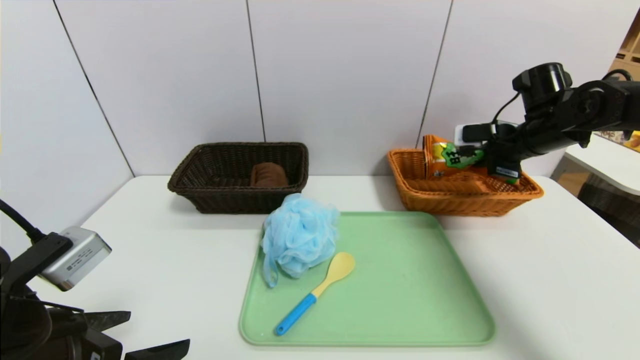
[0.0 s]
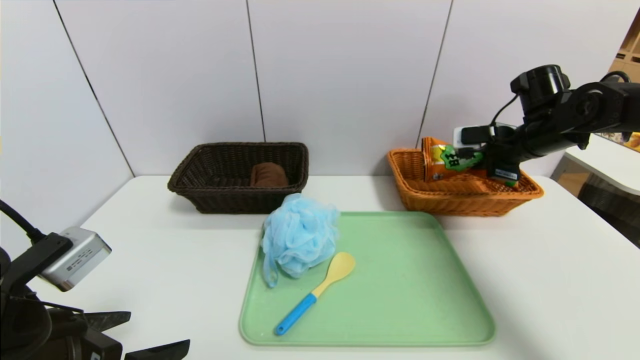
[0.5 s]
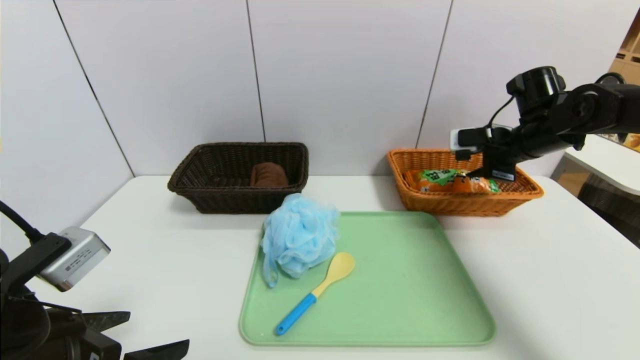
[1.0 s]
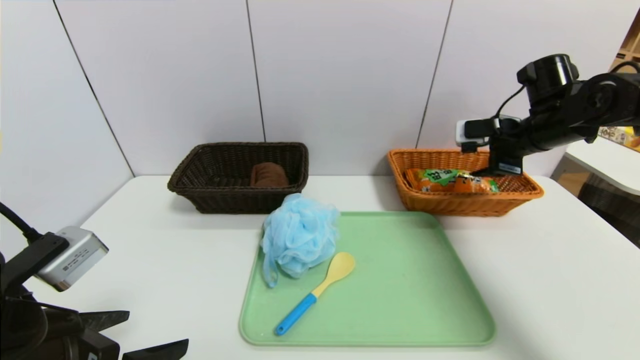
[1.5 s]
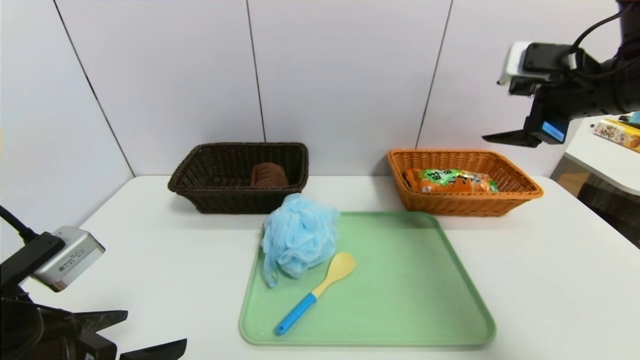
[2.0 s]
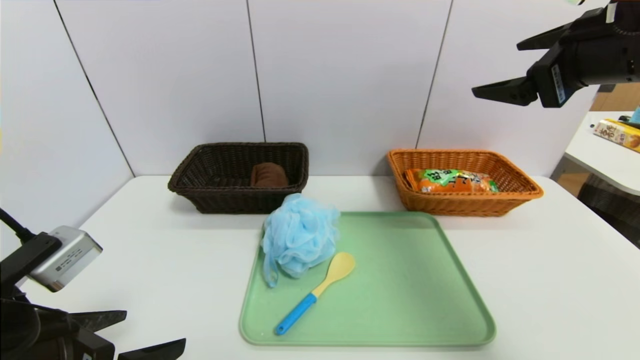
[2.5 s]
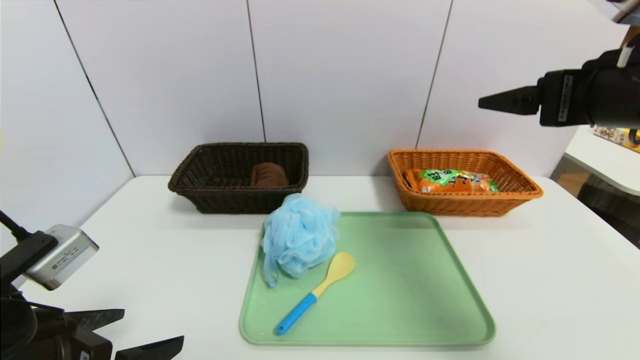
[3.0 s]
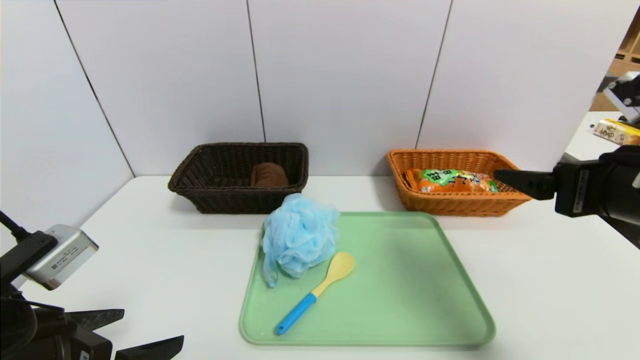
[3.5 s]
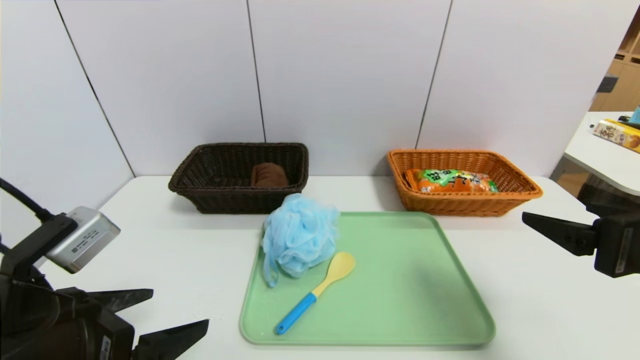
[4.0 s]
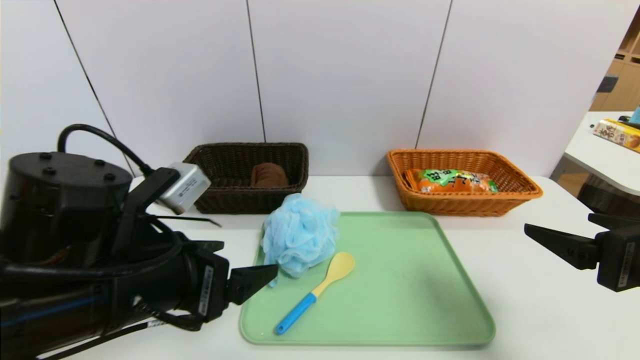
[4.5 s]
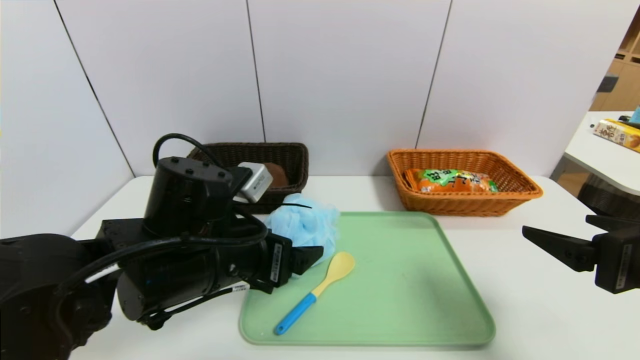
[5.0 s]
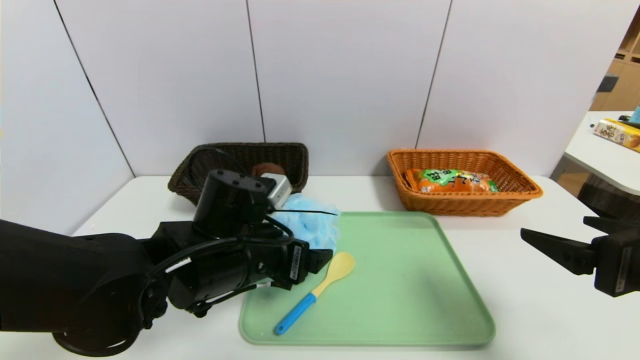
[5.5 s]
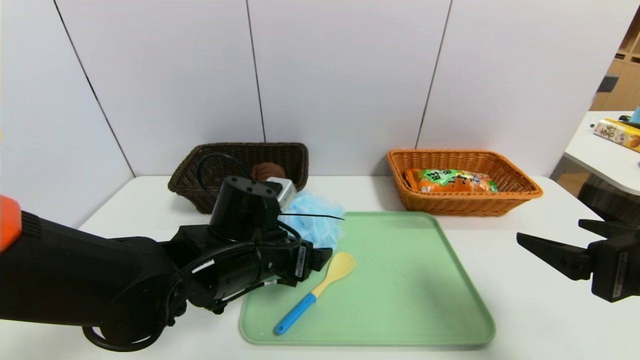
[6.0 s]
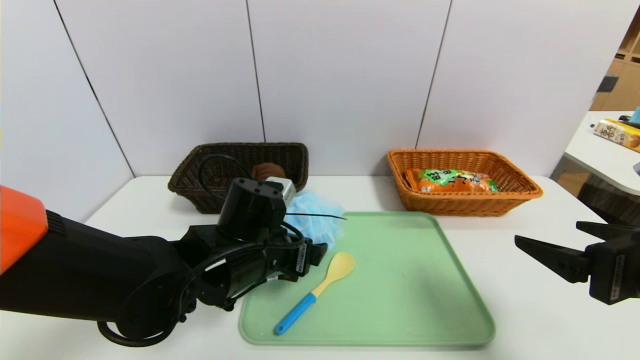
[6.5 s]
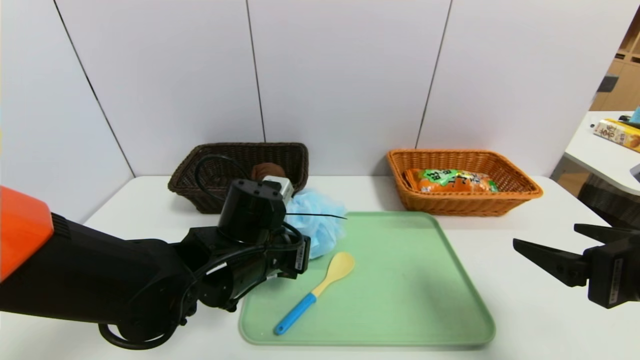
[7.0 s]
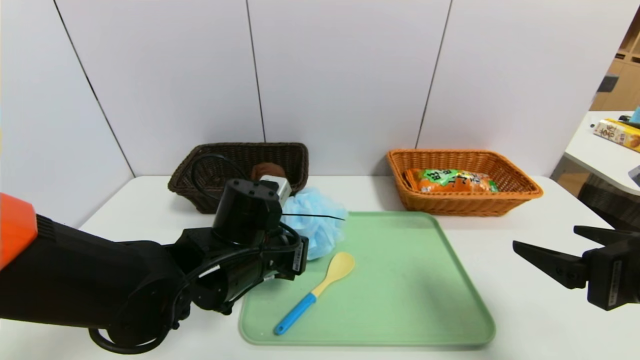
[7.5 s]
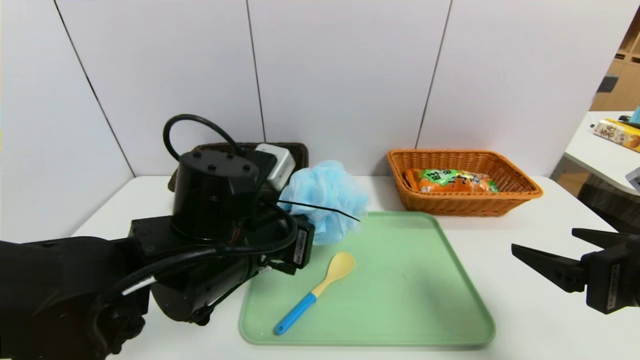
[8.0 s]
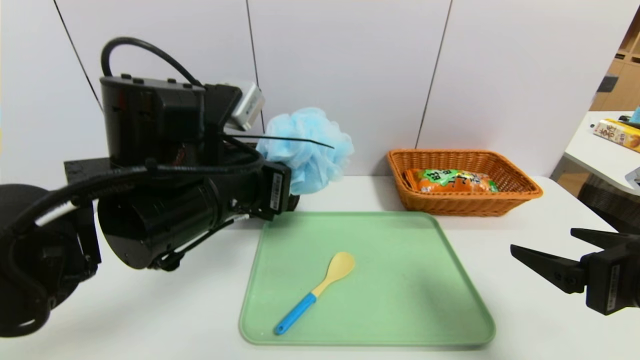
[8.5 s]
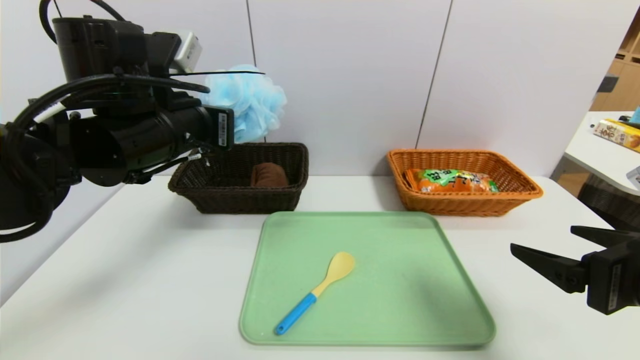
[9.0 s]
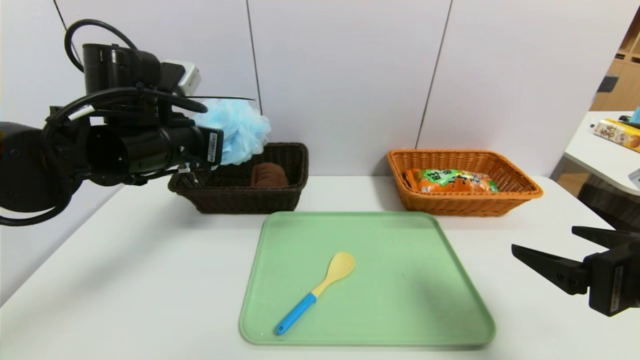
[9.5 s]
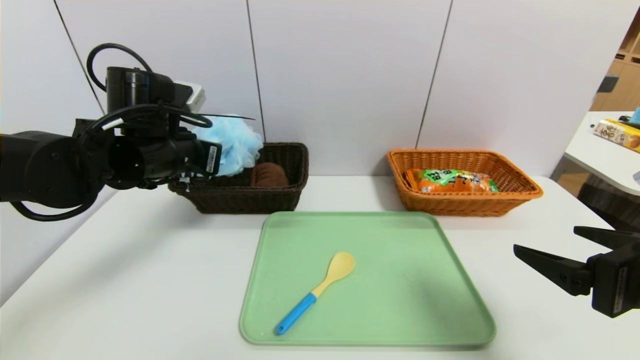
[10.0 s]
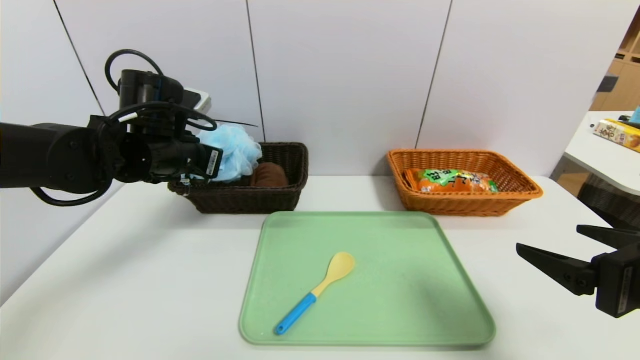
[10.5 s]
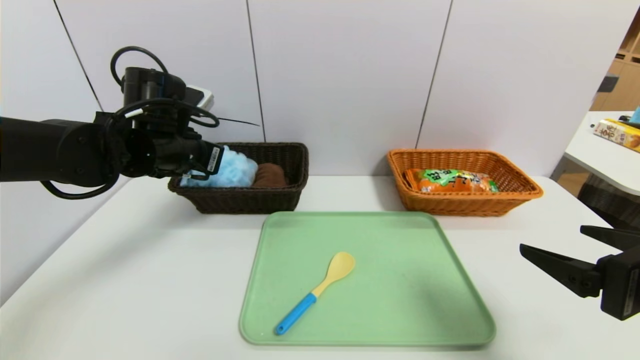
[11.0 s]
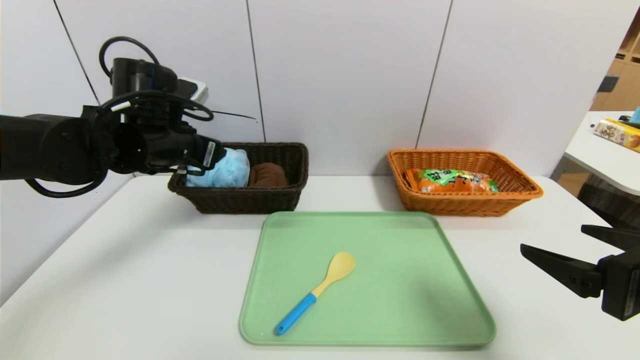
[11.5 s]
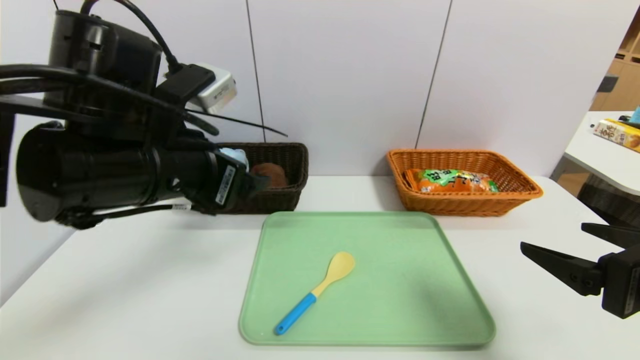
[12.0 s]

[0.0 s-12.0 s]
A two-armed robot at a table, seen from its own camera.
Task of the whole recording: place the food in the right basket with the right gripper, and place the non food items in the left basket with the left gripper.
Step, 2.0 to 11.5 s: Grasp the shower sphere and put it in the left basket.
0.0 to 2.0 s: The right gripper heads backward and upward, covering about 15 cm, and opens up.
2.0 to 4.0 s: The right gripper heads backward and downward, covering roughly 20 cm.
4.0 to 6.0 s: The left gripper heads forward, to the right and downward, covering approximately 20 cm.
6.0 to 8.0 s: The left gripper shifts roughly 5 cm upward, and closes up.
8.0 to 10.0 s: The left gripper travels to the left and forward by roughly 15 cm.
10.0 to 12.0 s: The left gripper shifts about 10 cm backward and to the right, and opens its fingers.

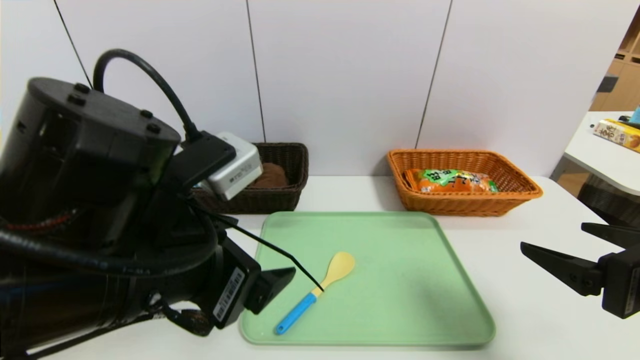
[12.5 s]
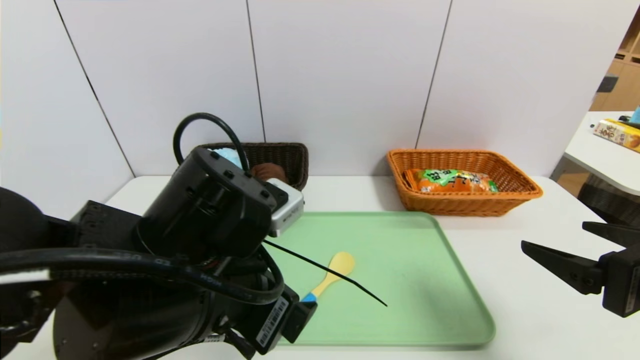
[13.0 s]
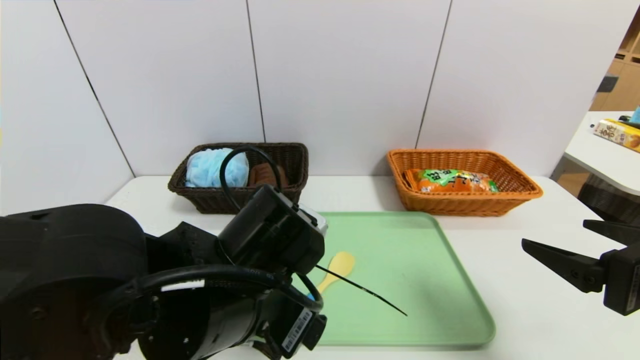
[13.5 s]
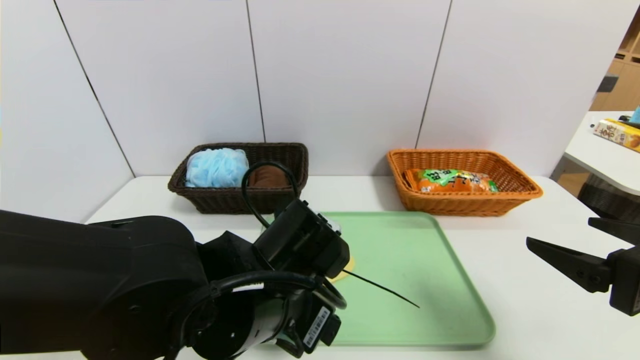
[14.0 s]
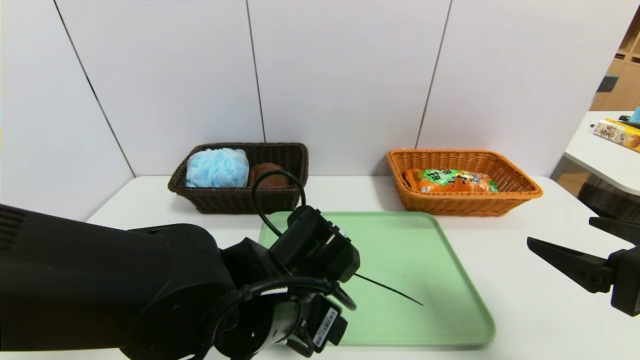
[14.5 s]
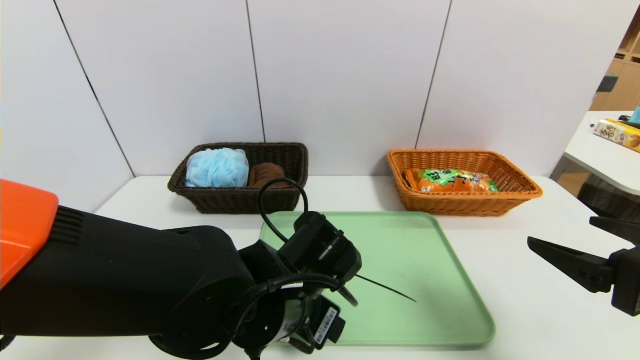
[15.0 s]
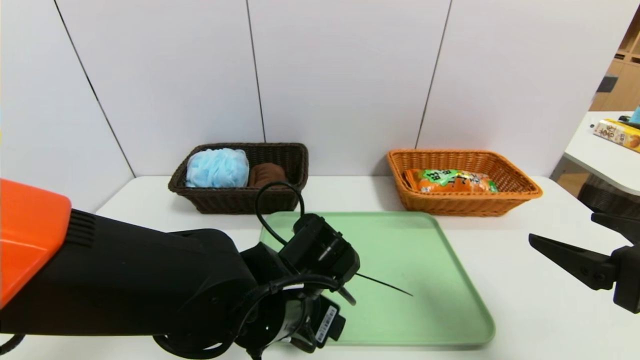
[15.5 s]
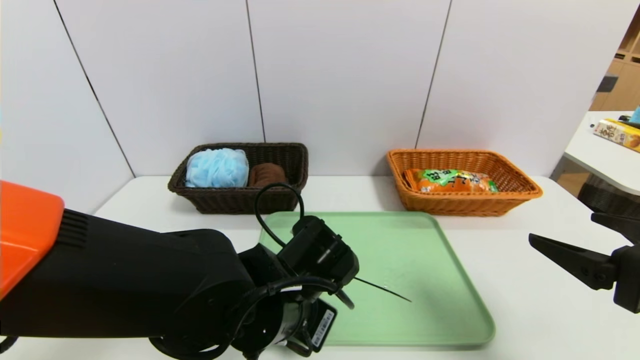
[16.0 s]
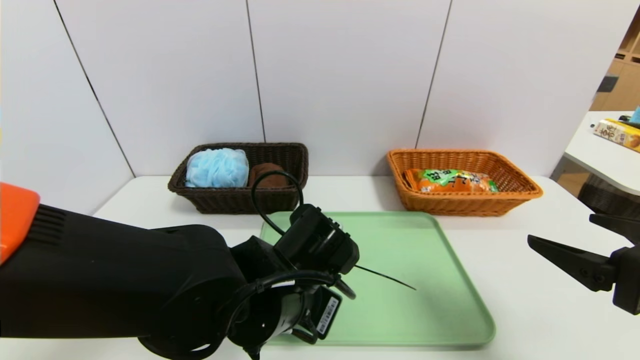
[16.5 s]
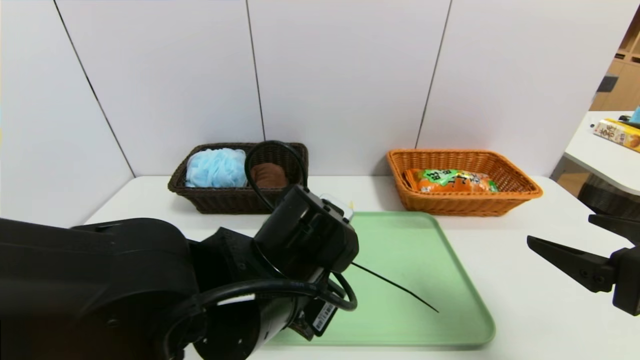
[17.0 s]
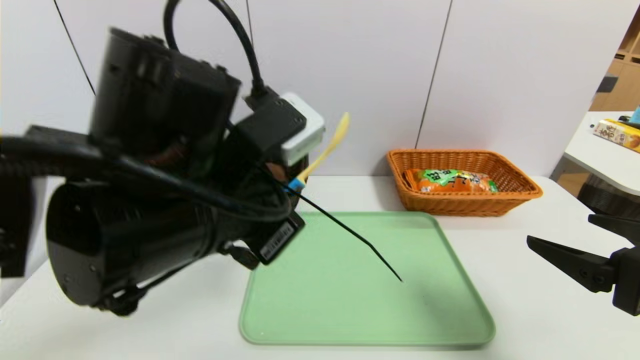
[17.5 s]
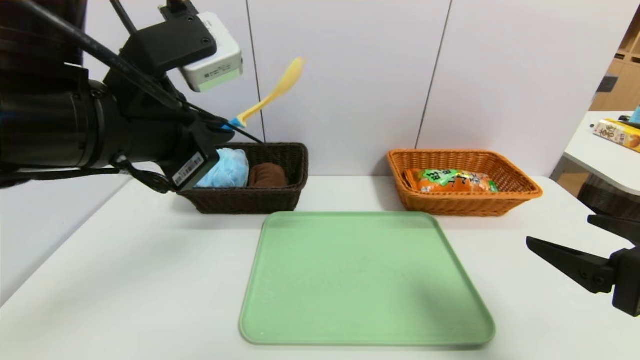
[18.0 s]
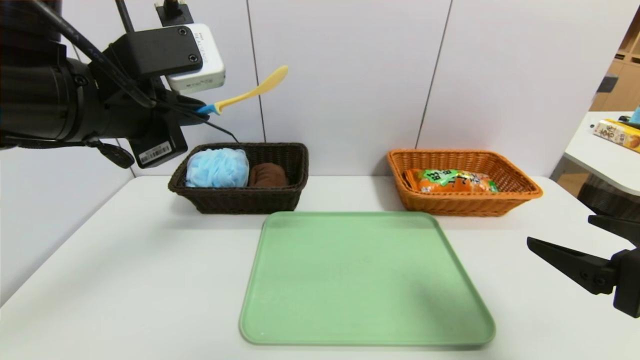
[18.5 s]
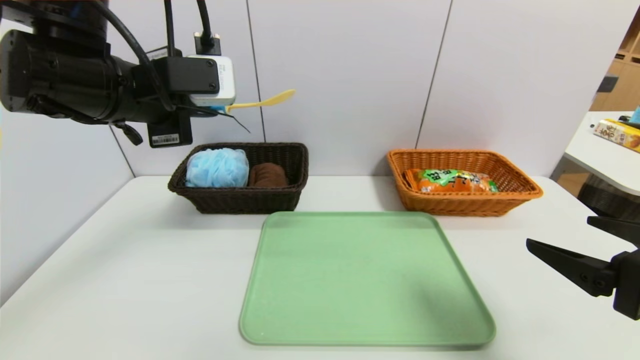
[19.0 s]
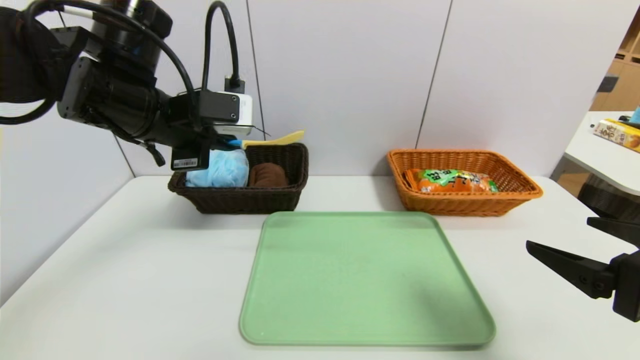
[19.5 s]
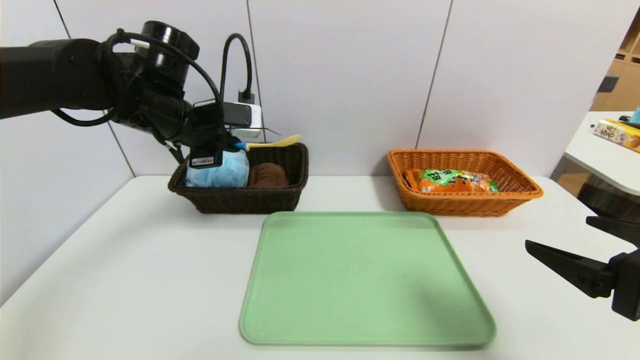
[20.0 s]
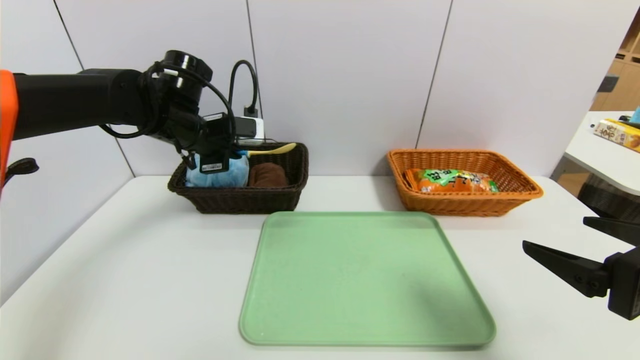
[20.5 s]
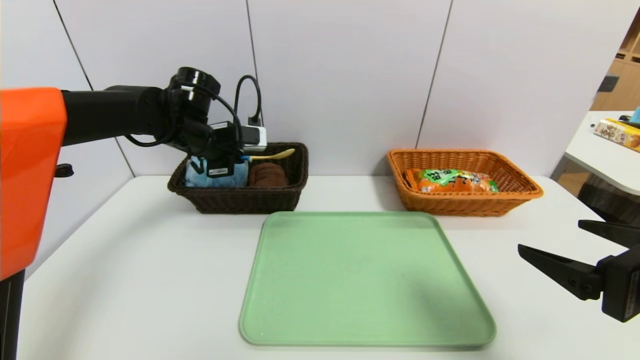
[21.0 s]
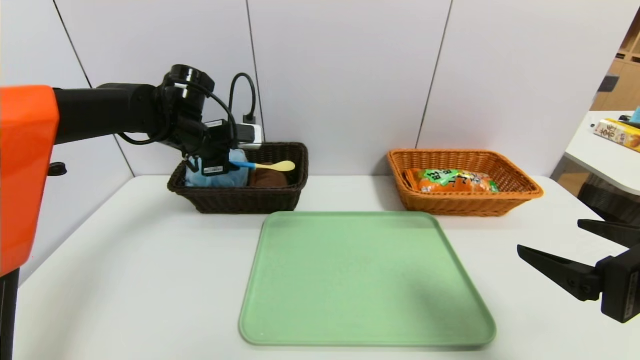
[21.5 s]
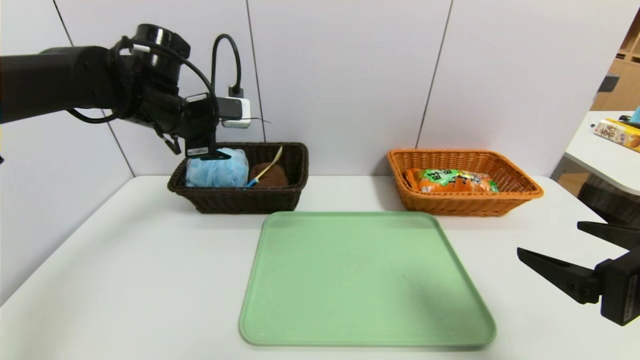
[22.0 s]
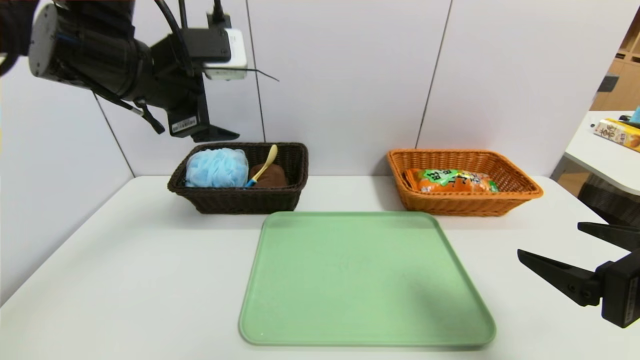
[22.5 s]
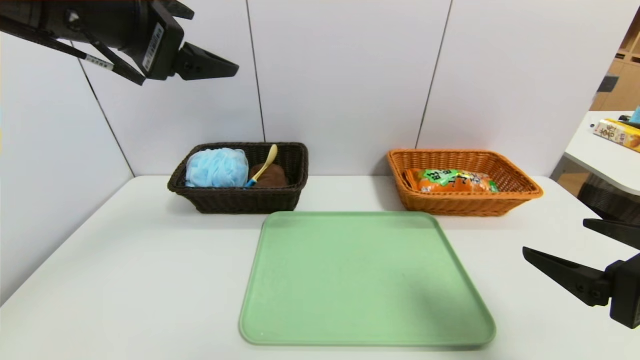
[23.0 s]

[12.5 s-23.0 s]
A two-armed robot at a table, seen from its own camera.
Task of the whole recording: place the food in the right basket with the right gripper, and place the non food items in the left basket with the left gripper.
Step, 12.5 to 21.5 s: Grasp the spoon and put it in the left basket.
12.5 to 14.5 s: The left gripper travels downward and to the right by about 15 cm.
14.5 to 16.5 s: The left gripper closes its fingers.
16.5 to 19.0 s: The left gripper moves upward and to the left, roughly 25 cm.
19.0 to 21.0 s: The left gripper shifts roughly 20 cm forward and downward.
21.0 to 23.0 s: The left gripper travels backward and upward by roughly 25 cm, and opens.
